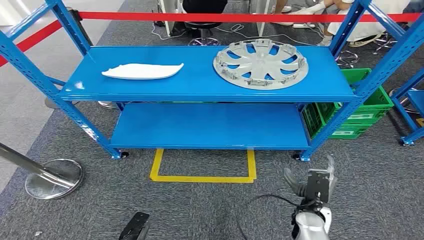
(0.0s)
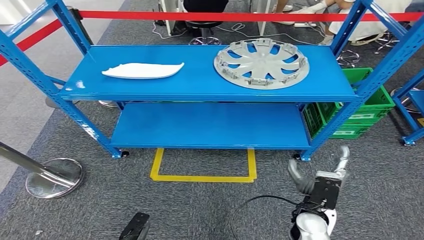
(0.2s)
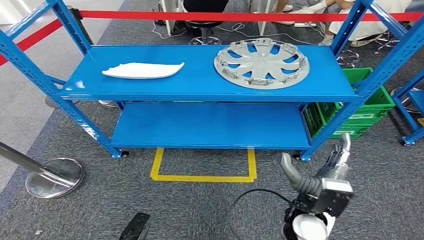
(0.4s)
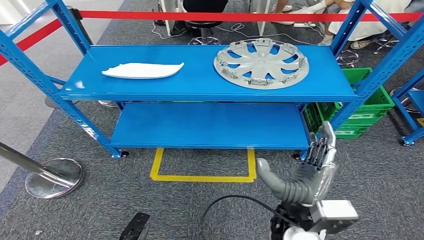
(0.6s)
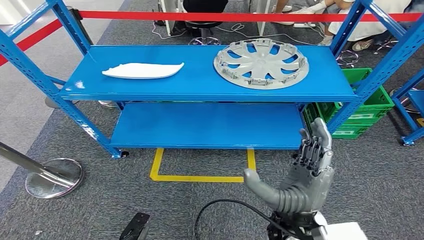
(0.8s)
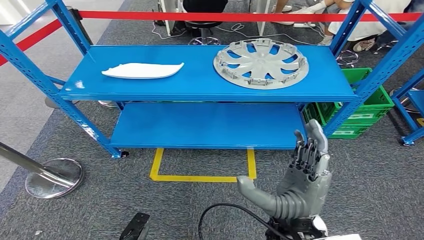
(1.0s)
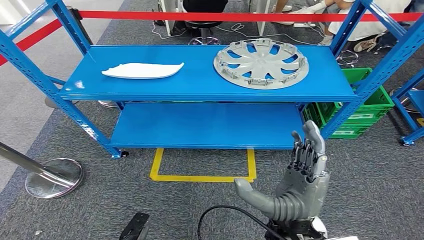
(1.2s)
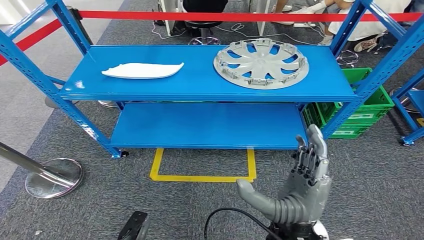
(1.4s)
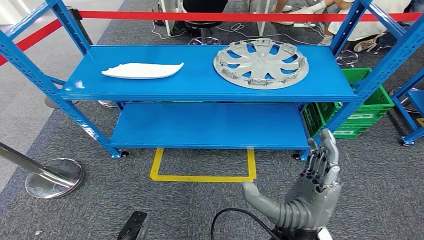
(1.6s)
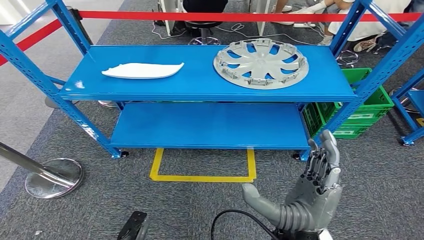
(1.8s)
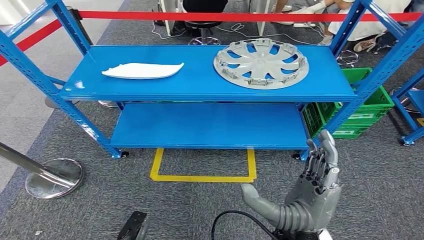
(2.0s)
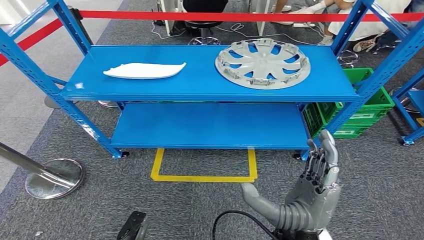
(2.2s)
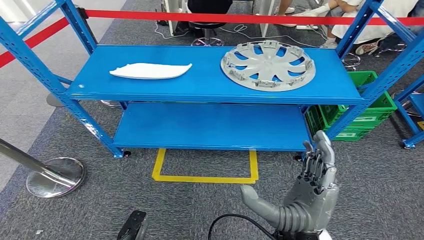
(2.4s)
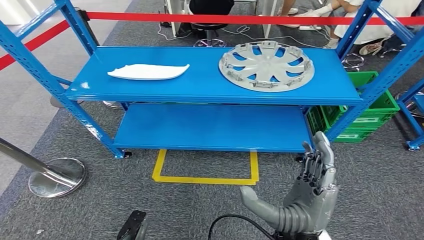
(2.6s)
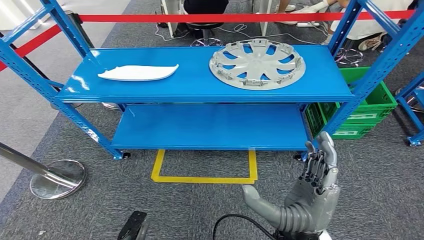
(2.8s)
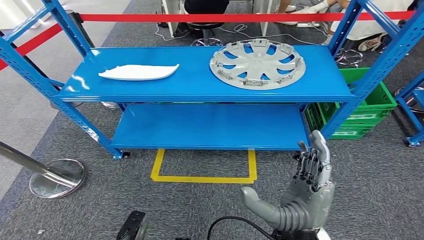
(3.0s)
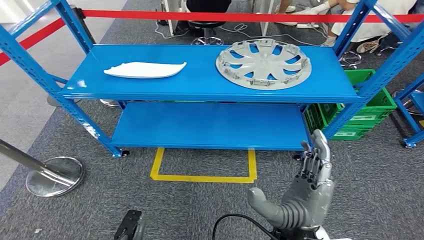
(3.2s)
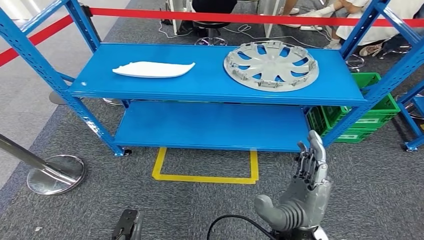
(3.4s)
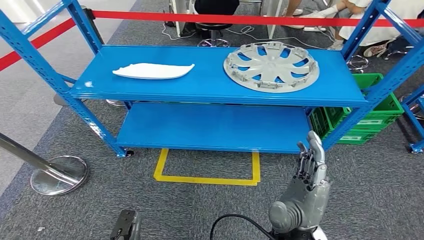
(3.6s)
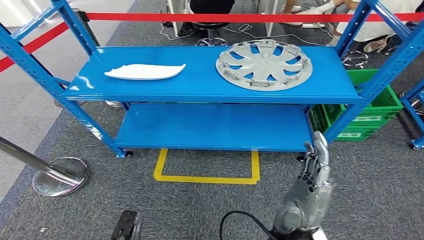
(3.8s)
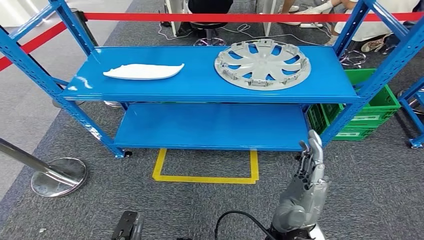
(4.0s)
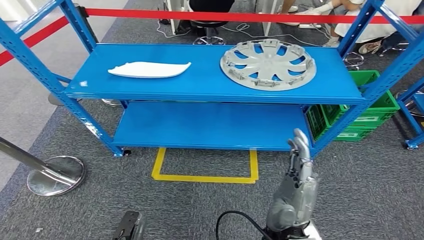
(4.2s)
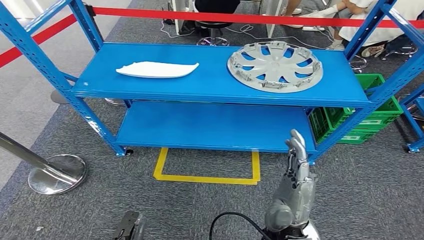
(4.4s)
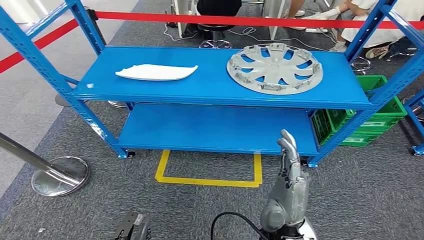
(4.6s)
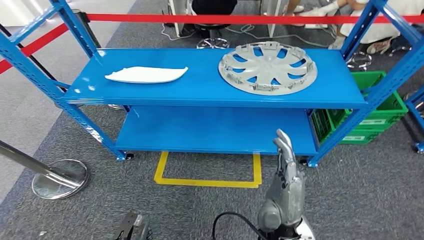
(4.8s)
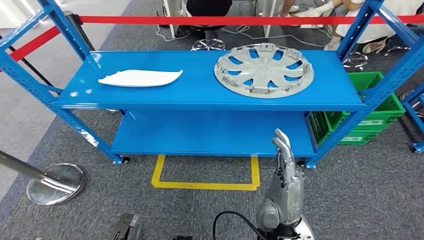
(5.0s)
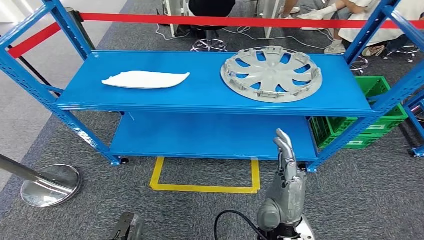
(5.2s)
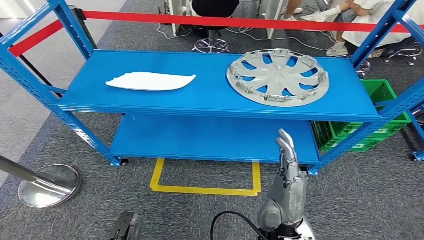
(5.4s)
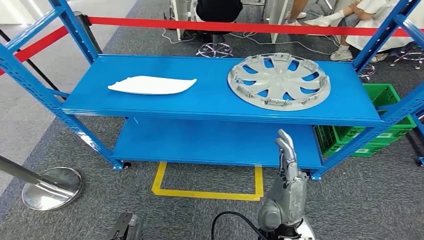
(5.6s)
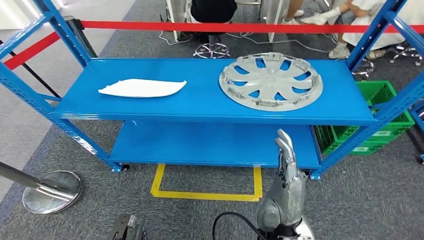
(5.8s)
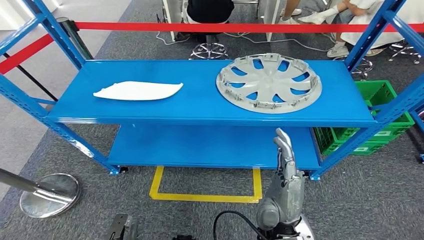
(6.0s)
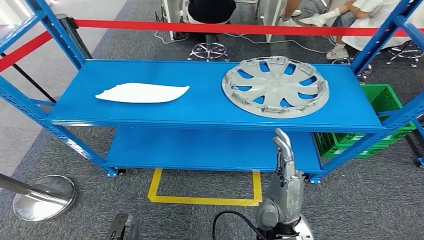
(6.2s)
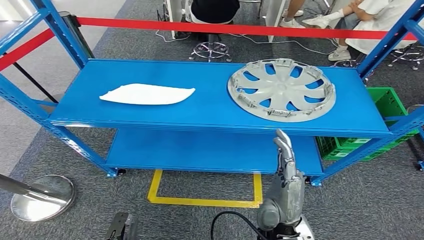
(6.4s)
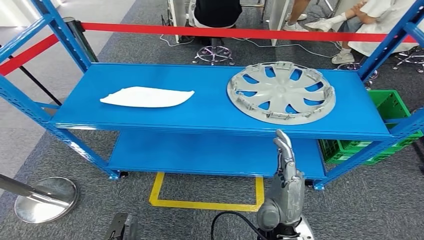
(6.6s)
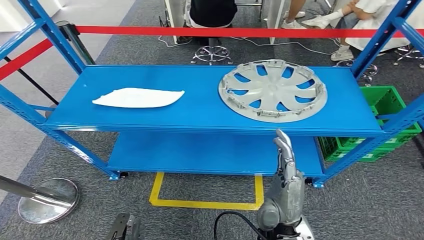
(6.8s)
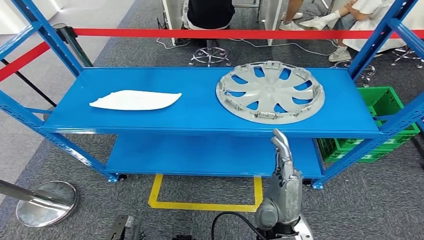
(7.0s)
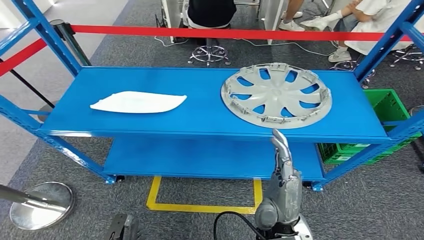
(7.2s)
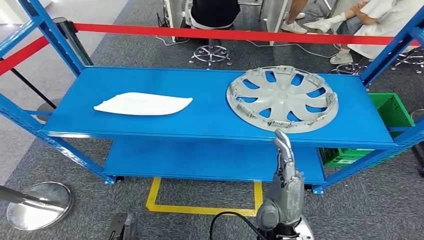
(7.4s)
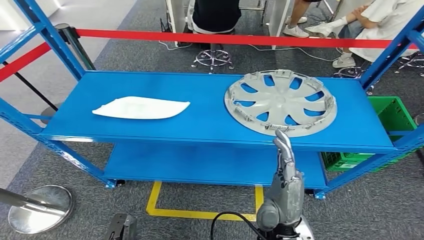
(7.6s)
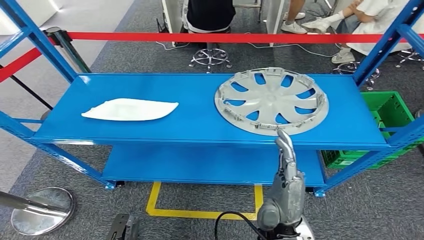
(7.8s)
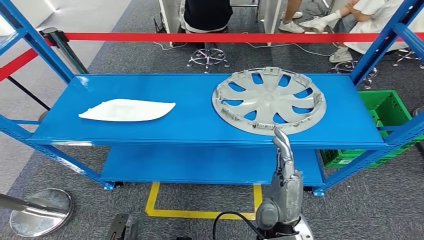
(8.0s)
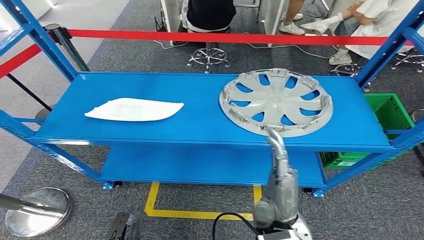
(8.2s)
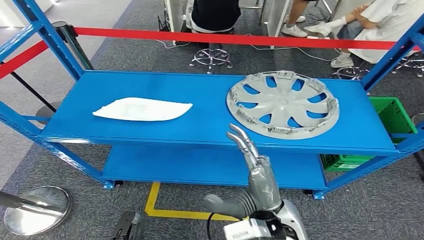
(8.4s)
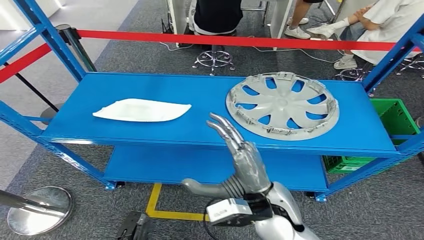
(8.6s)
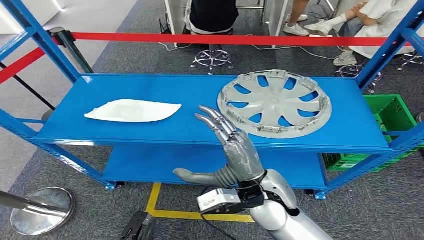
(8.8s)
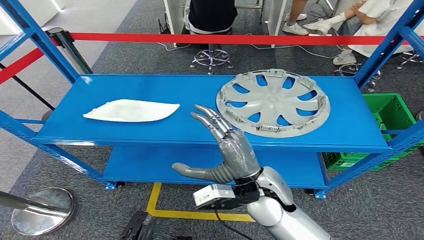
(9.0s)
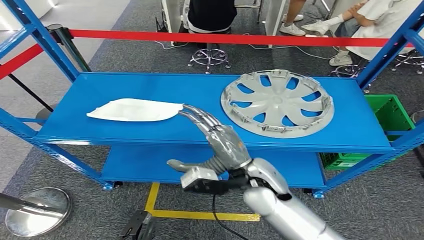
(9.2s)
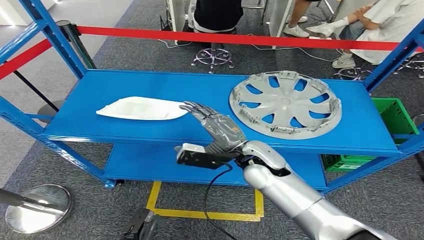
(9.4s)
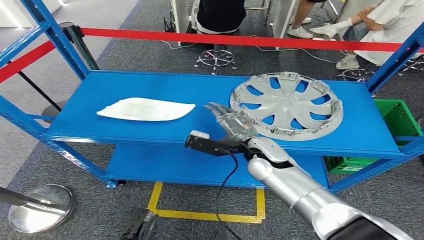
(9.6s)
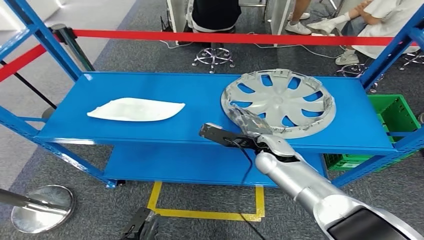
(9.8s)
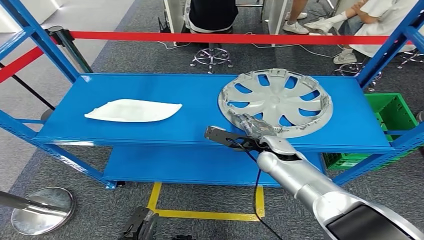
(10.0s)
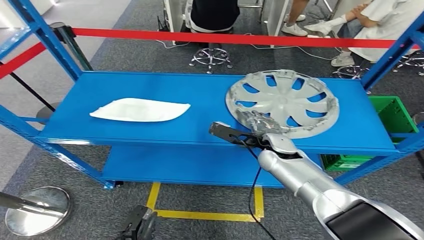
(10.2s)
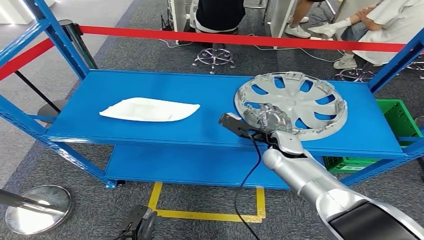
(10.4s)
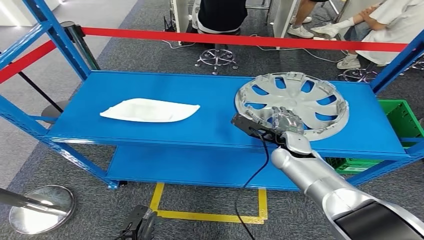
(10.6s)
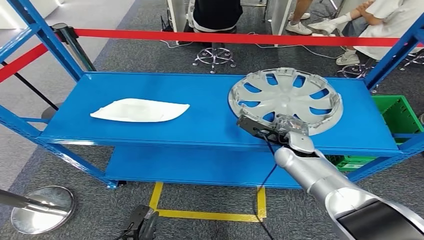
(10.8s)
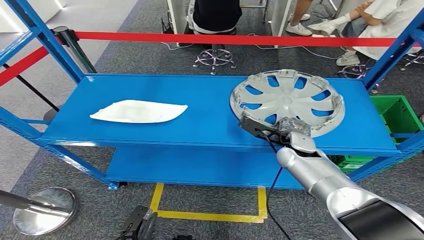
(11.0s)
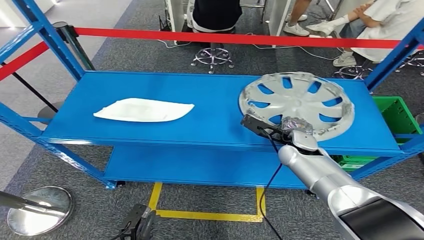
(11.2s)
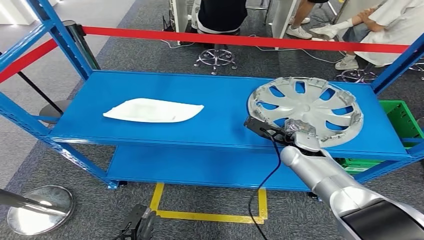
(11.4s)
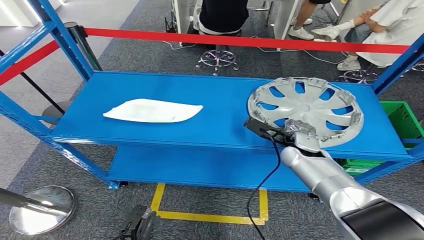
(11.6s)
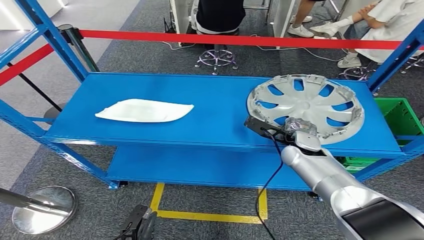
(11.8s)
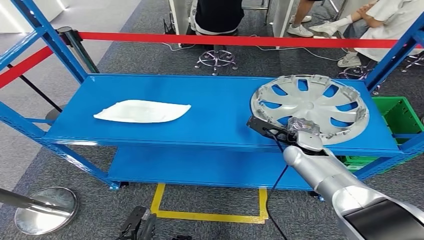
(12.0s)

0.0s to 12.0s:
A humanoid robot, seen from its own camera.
1.6s to 3.0s: The hands move only a little.

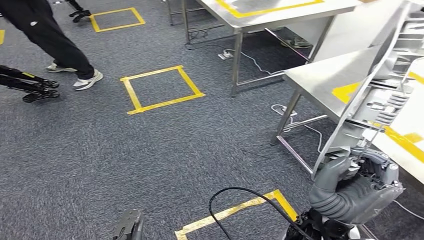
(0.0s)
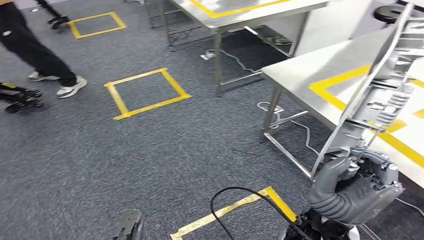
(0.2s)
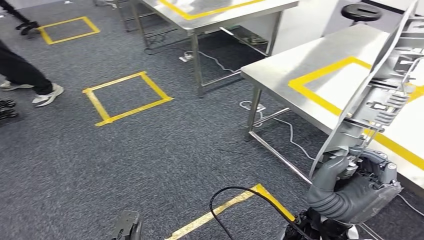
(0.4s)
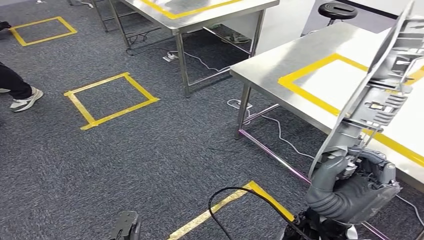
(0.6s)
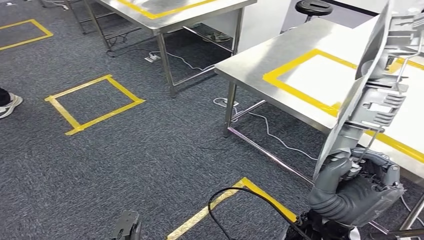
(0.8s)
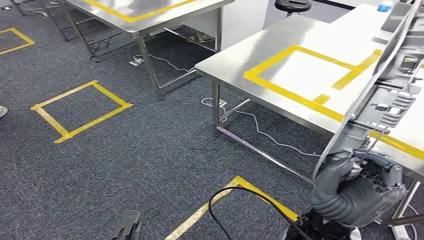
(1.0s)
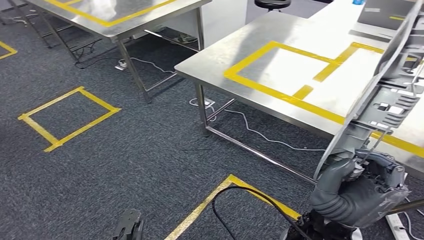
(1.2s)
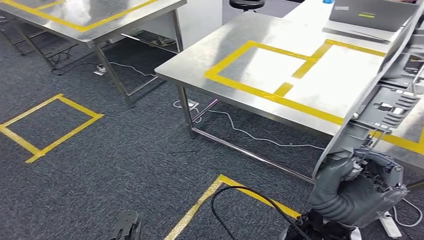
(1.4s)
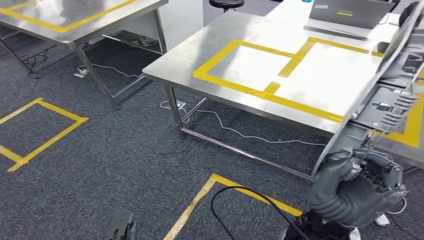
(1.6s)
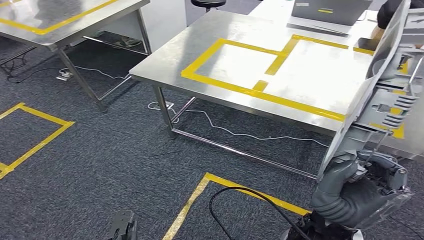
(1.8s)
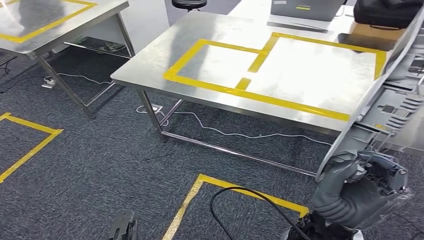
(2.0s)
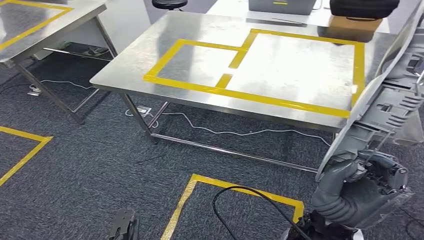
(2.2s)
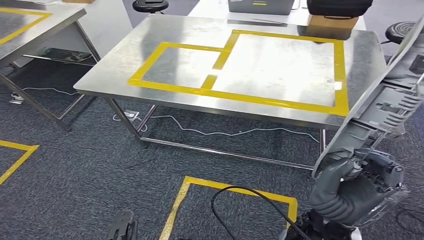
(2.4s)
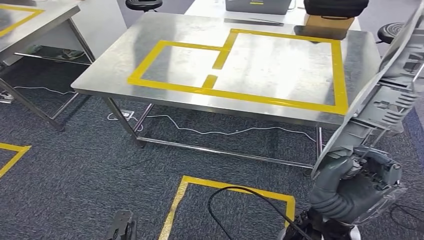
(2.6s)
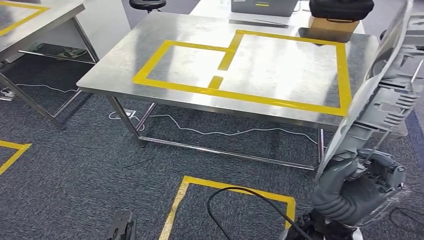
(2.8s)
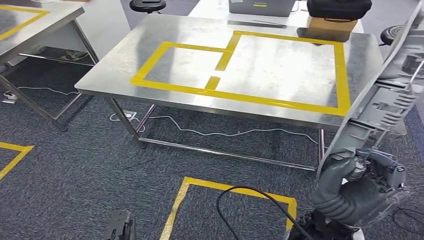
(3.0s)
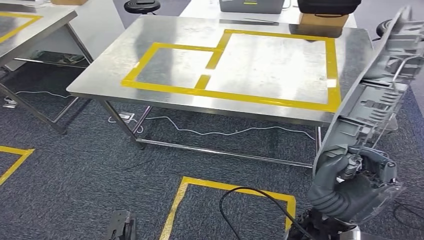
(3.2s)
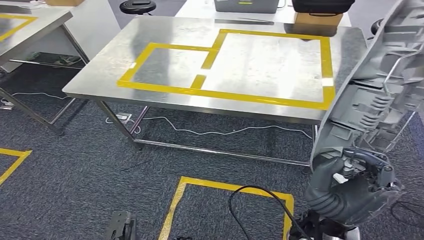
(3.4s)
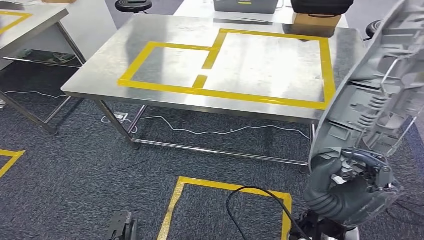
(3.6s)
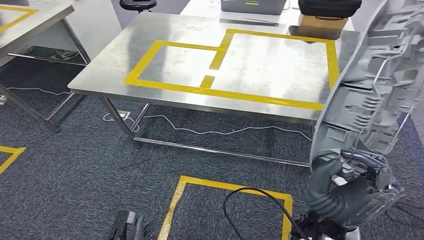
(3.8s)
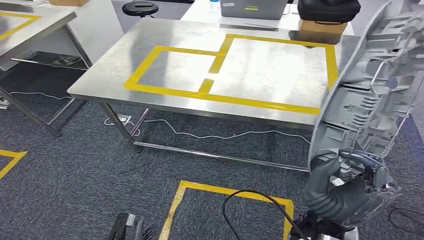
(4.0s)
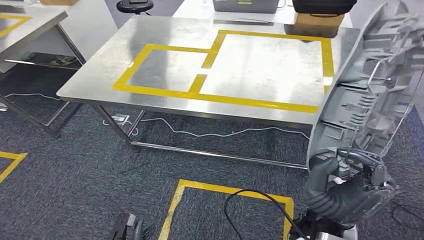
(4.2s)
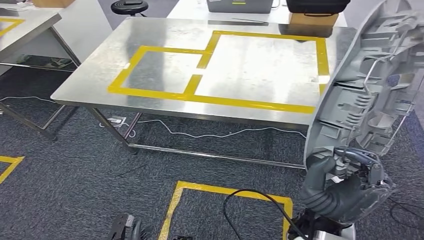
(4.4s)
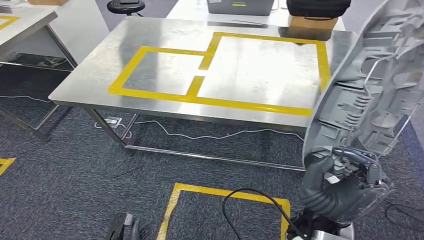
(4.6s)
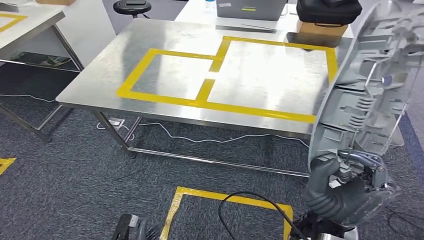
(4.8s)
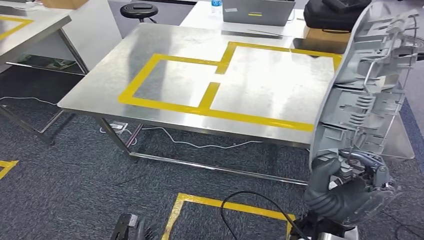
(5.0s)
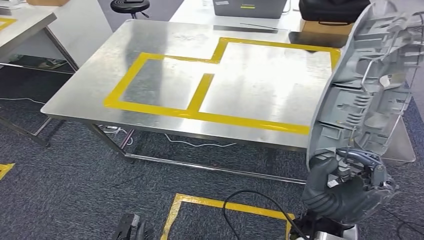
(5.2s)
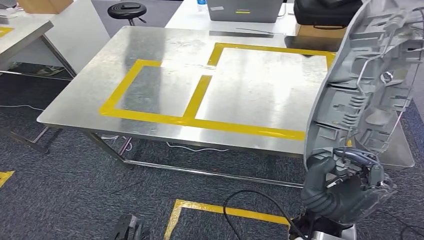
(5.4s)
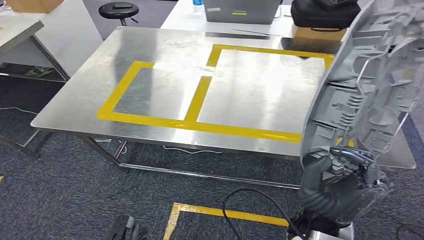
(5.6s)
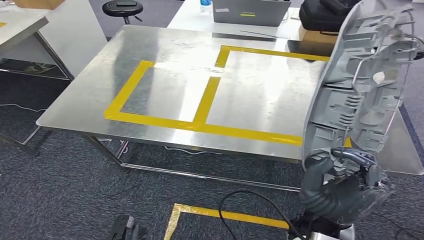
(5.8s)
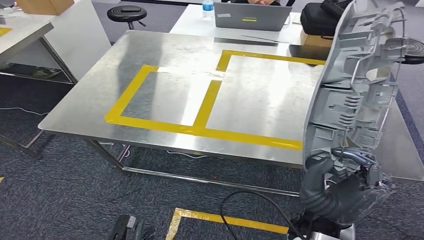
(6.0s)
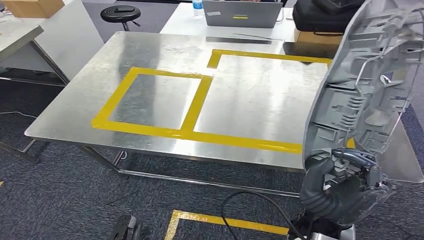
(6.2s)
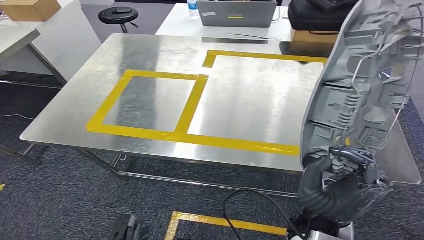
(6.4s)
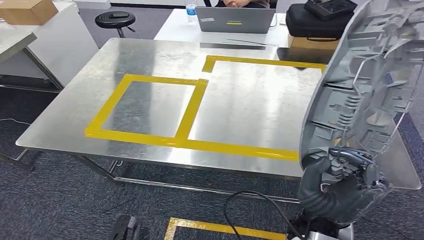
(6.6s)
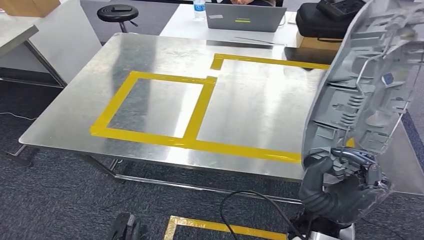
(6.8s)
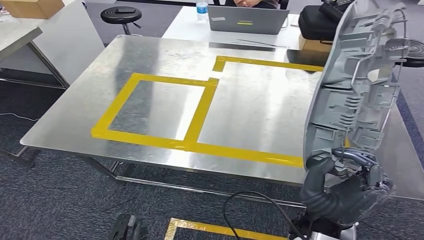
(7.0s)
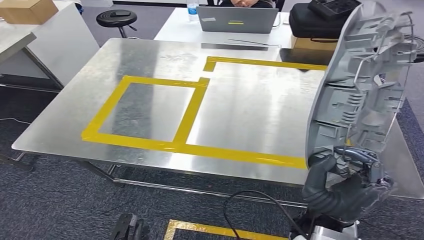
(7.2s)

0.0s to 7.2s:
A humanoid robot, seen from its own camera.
Step, 0.0s to 7.0s: Move the small parts to the workbench.
